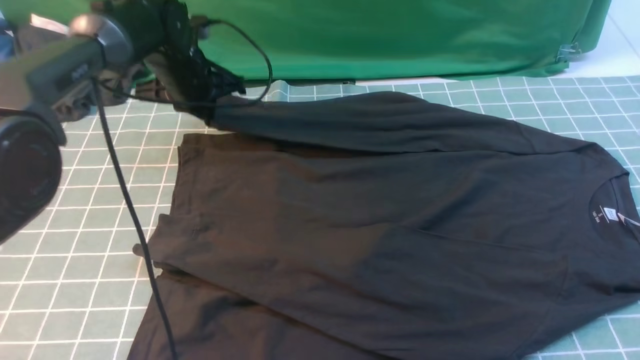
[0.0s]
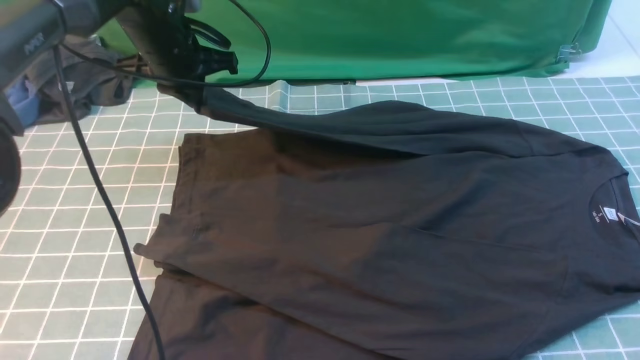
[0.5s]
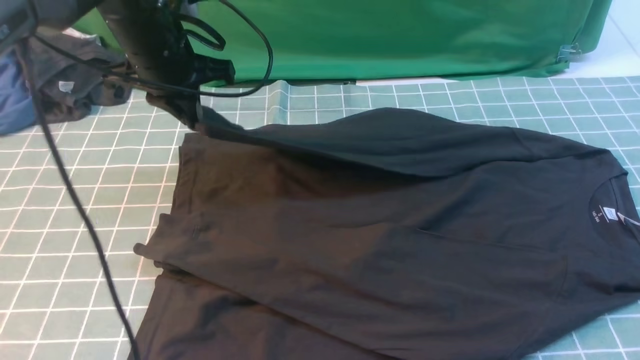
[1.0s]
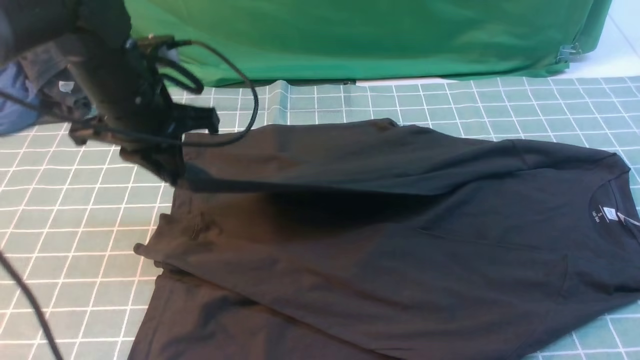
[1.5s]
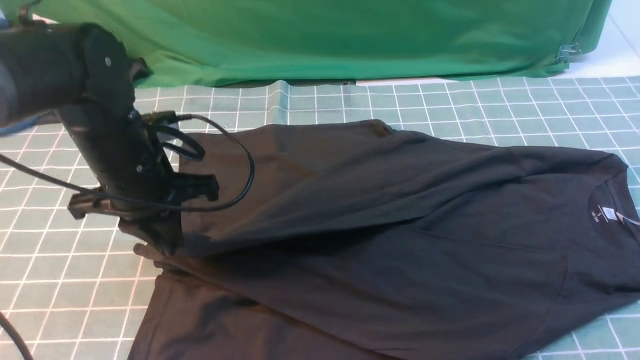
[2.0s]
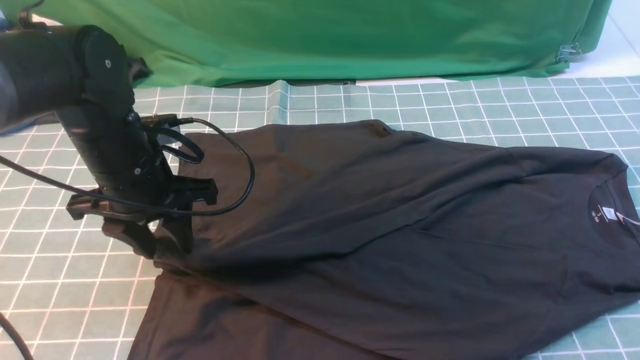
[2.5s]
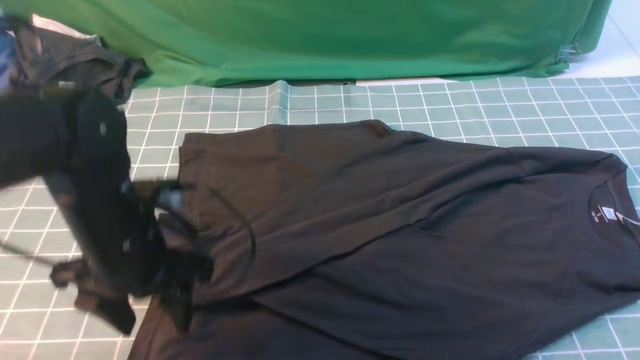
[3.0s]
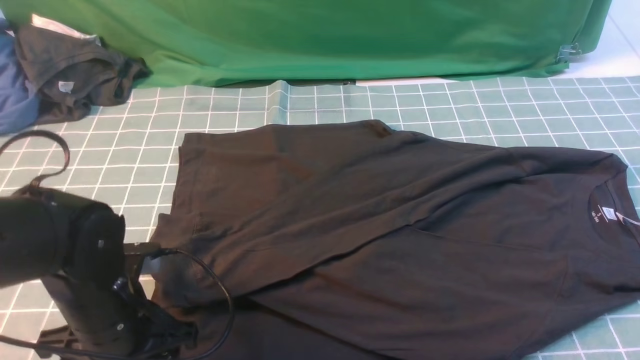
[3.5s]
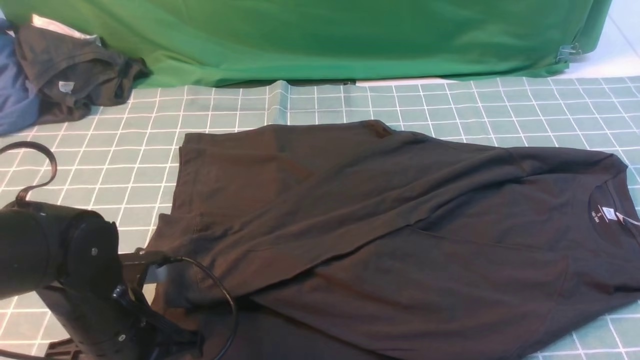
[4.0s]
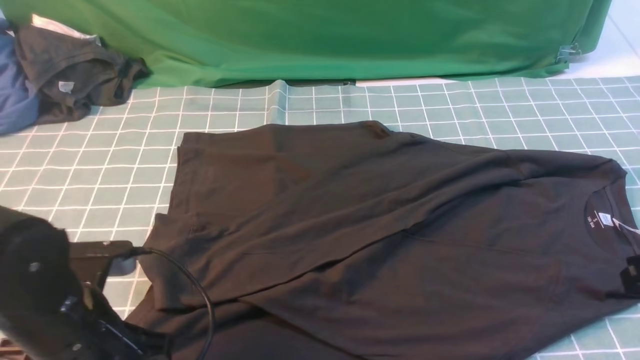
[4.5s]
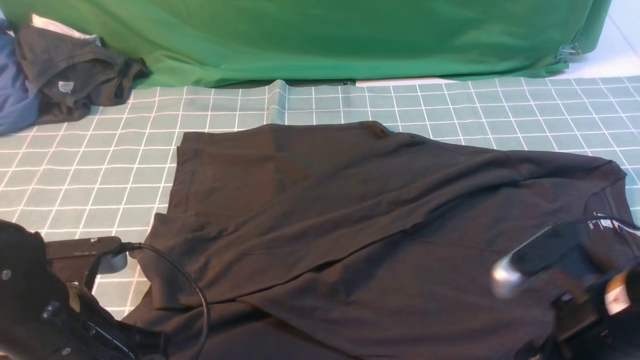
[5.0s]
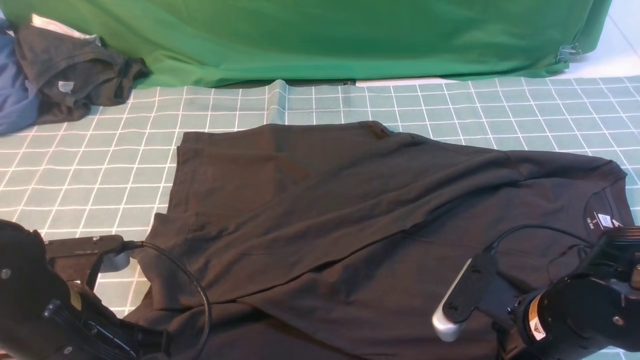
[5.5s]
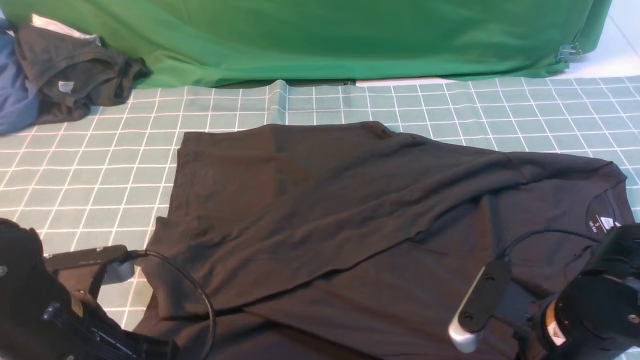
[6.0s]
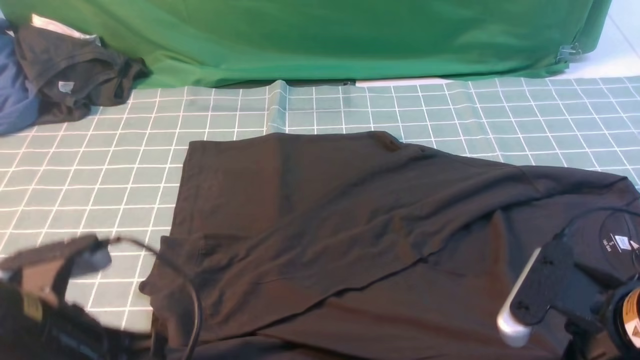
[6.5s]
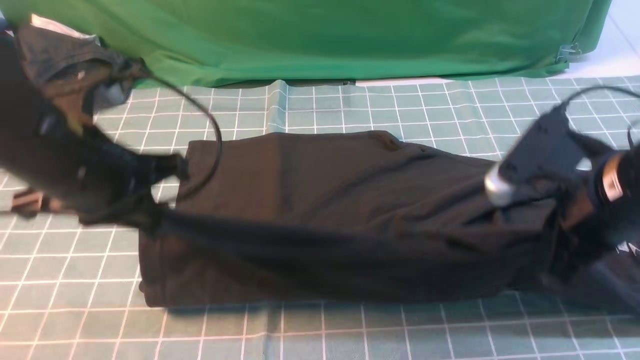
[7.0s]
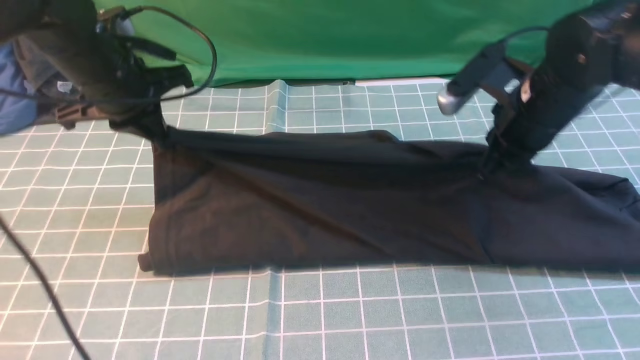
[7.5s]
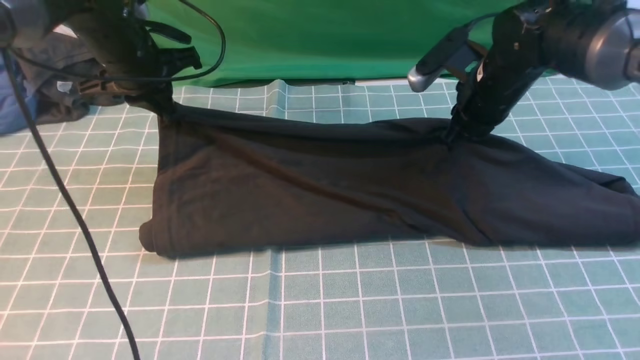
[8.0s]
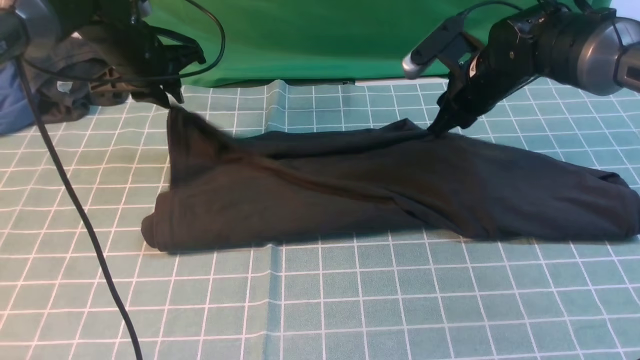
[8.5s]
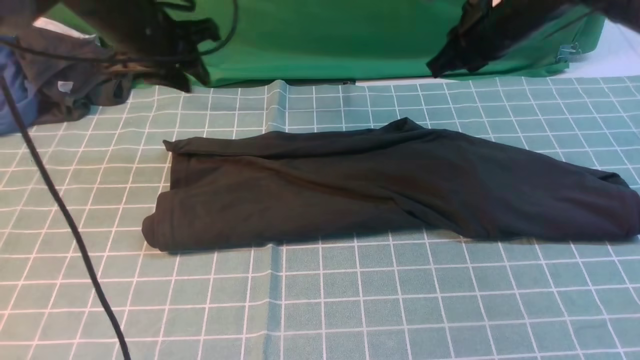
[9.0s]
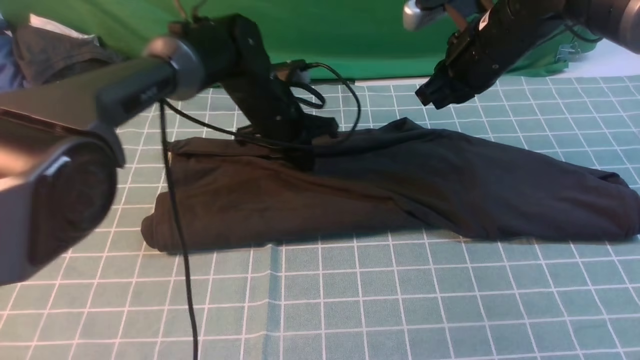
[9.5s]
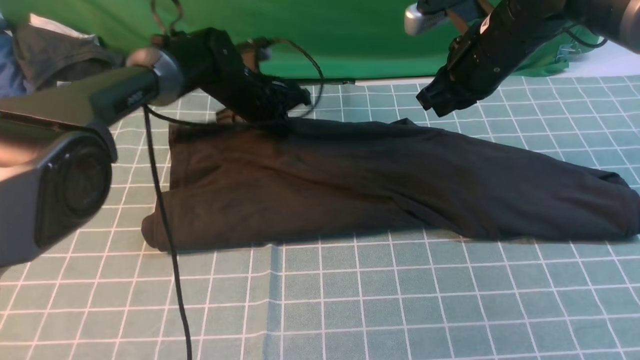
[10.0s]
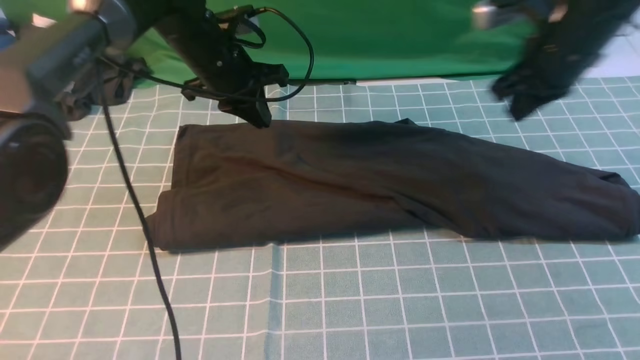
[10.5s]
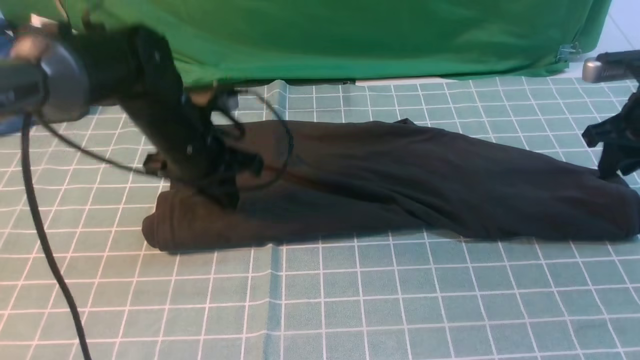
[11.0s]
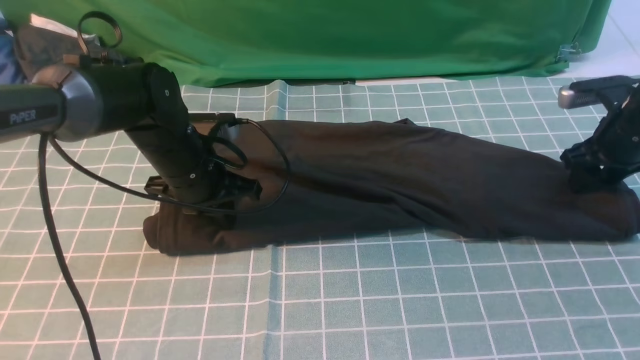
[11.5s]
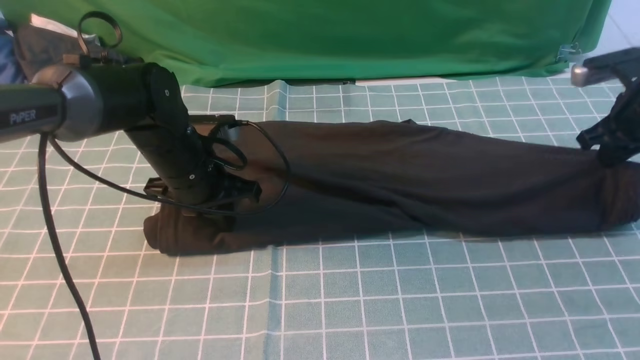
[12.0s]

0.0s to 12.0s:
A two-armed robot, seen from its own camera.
Step, 0.0s to 2.5s: use the left arm to drag and drop the cuff onto the cuff closest to the left arm.
Step, 3.0s to 6.0s: use both arms simultaneously to clamp the lower edge of the clothing fabric.
Step, 6.5s to 8.5s: use both arms to drag the lower edge of the fabric forward and fold it over the upper edge.
0.0s to 2.0s: The left gripper travels backward by approximately 20 cm. Meanwhile the right gripper shifts by about 5 cm.
2.0s to 4.0s: The left gripper shifts approximately 15 cm backward and downward, and opens, then closes once more.
4.0s to 6.0s: The right gripper shifts about 15 cm downward and to the left, and opens and closes again; the left gripper travels upward by roughly 5 cm.
6.0s to 8.0s: The grippers both shift forward by about 30 cm.
8.0s to 10.0s: The right gripper goes roughly 5 cm upward. Meanwhile the left gripper is displaced to the right and downward by some 15 cm.
10.0s to 12.0s: The left gripper shifts about 15 cm backward; the right gripper travels to the right by approximately 20 cm, and opens, then closes again.

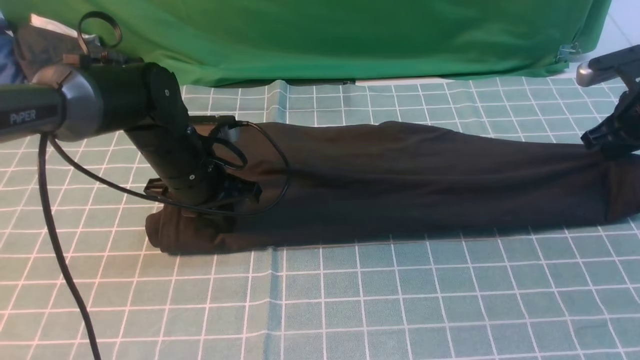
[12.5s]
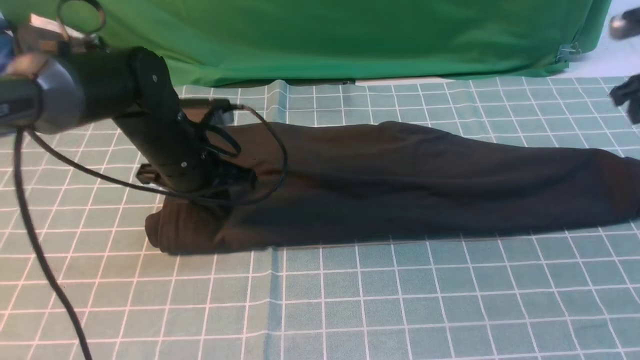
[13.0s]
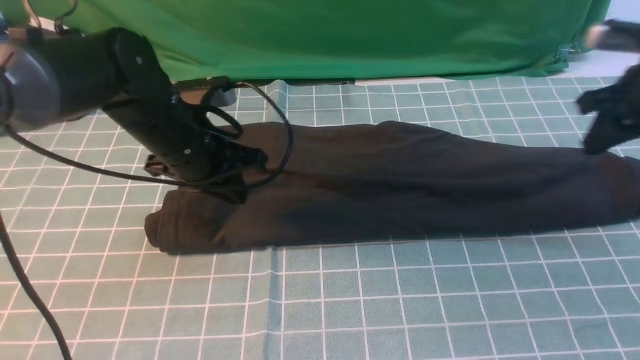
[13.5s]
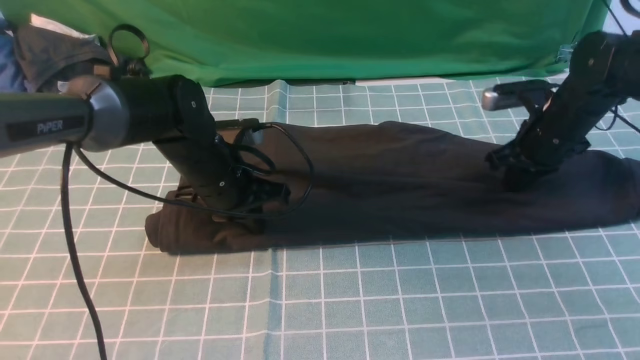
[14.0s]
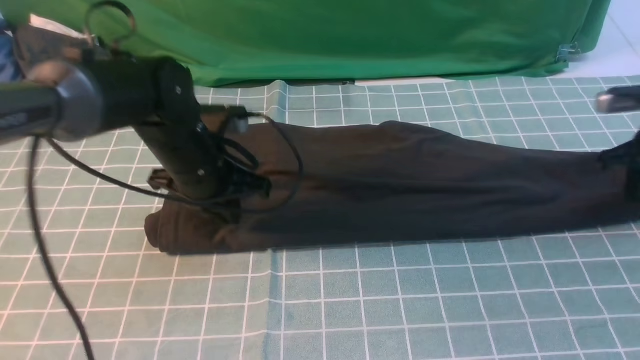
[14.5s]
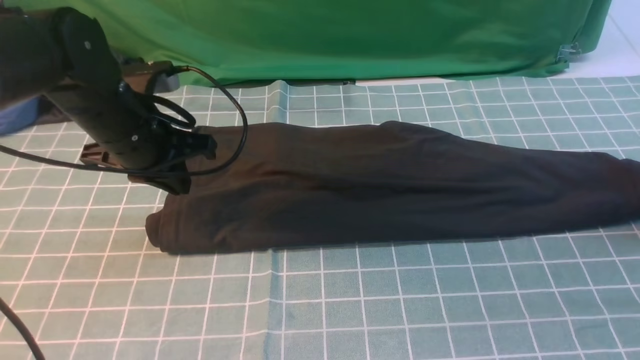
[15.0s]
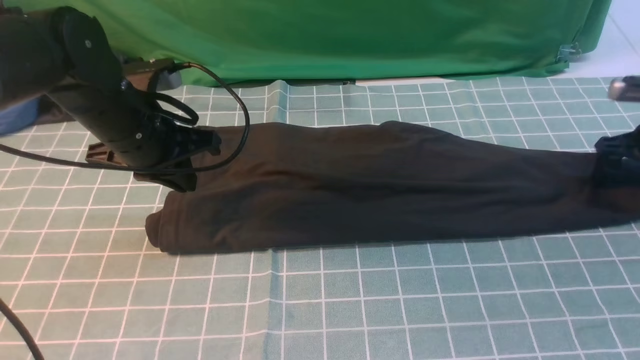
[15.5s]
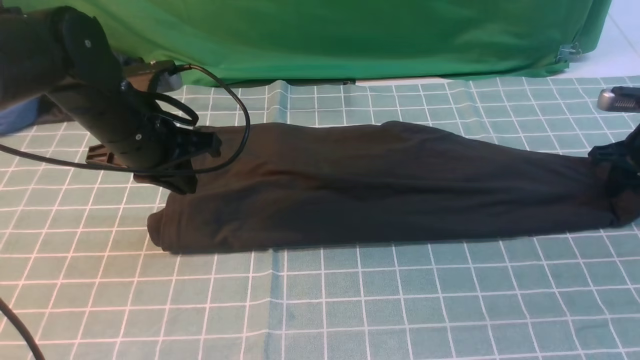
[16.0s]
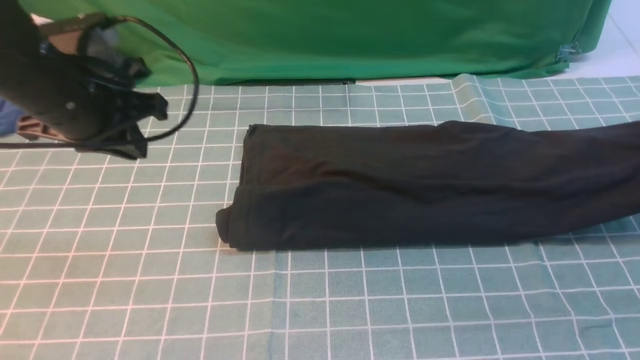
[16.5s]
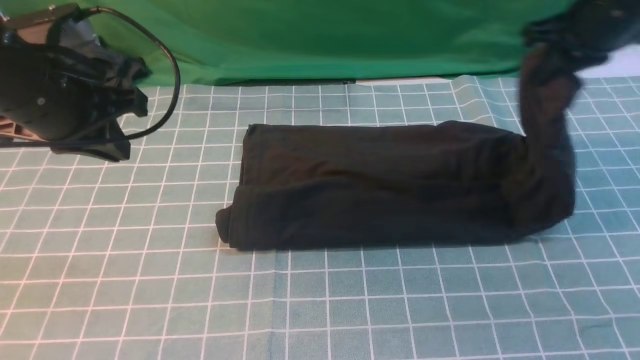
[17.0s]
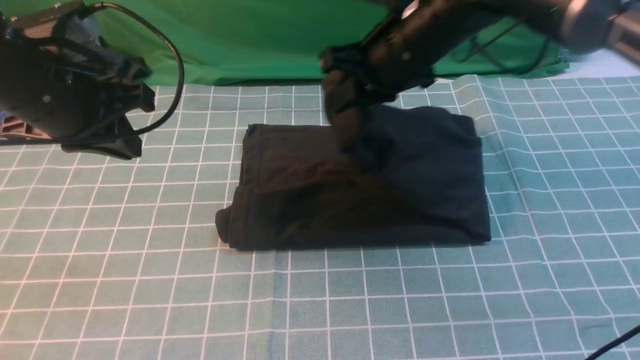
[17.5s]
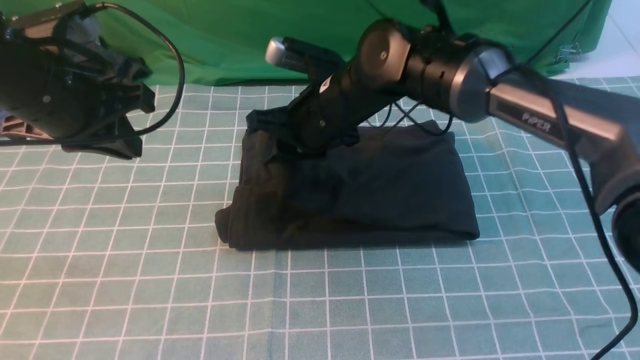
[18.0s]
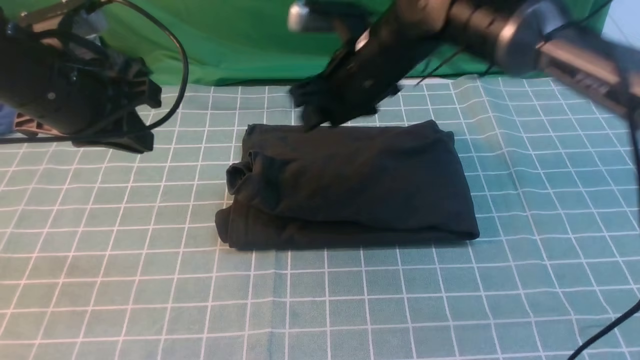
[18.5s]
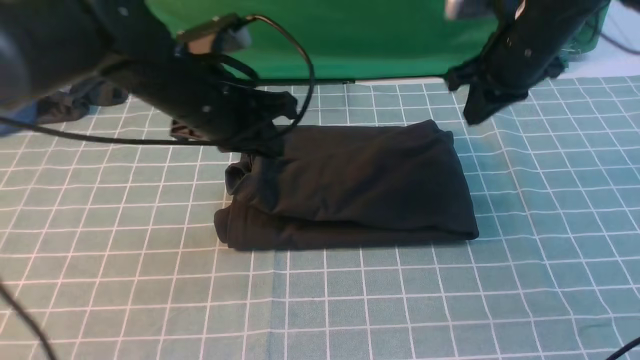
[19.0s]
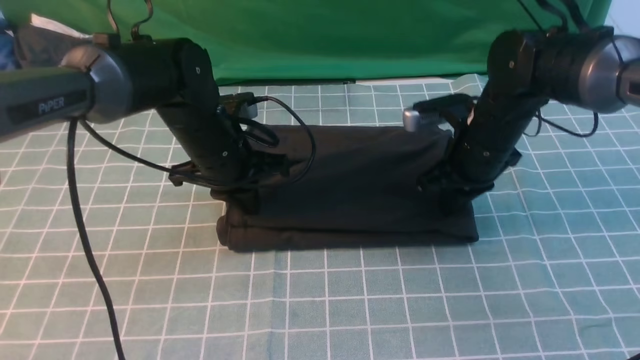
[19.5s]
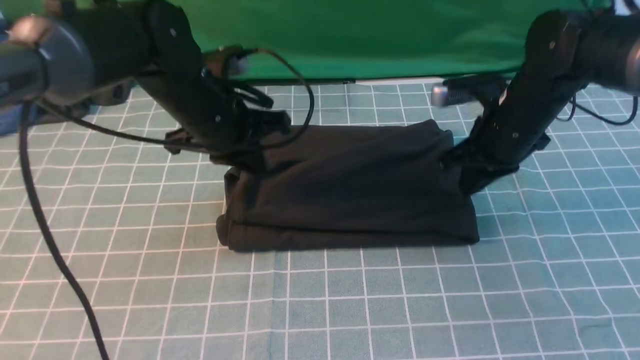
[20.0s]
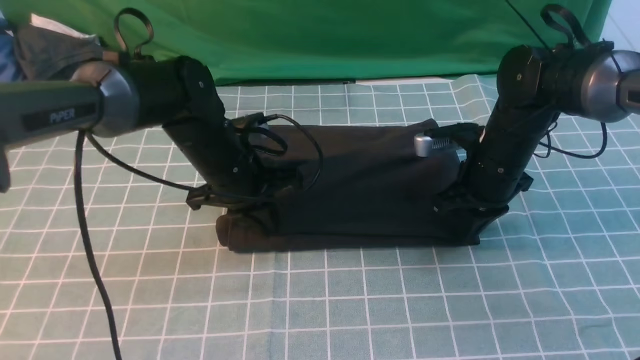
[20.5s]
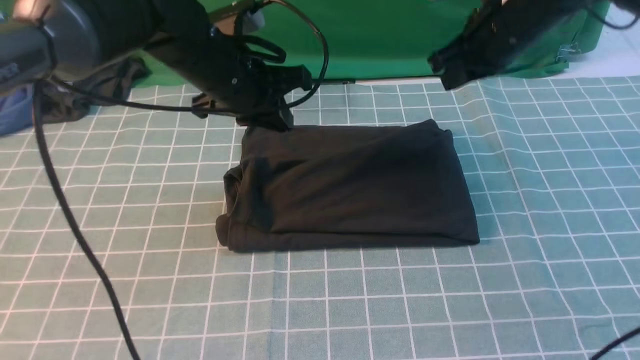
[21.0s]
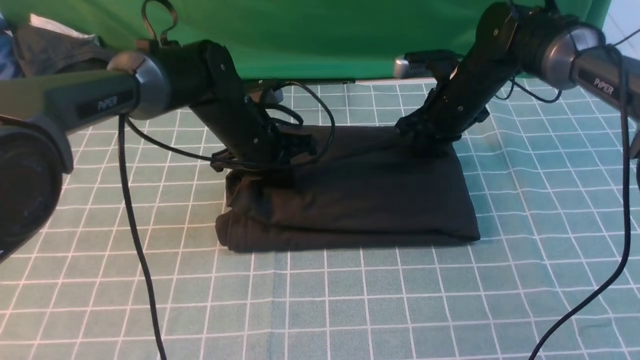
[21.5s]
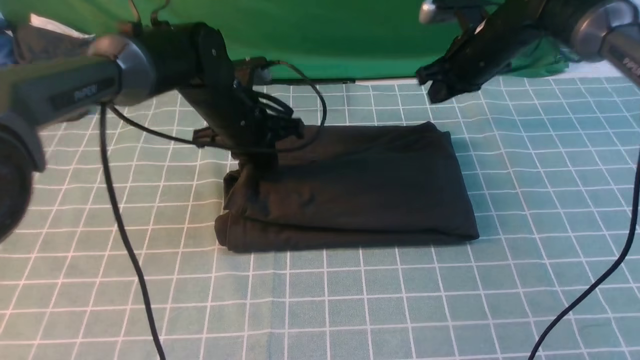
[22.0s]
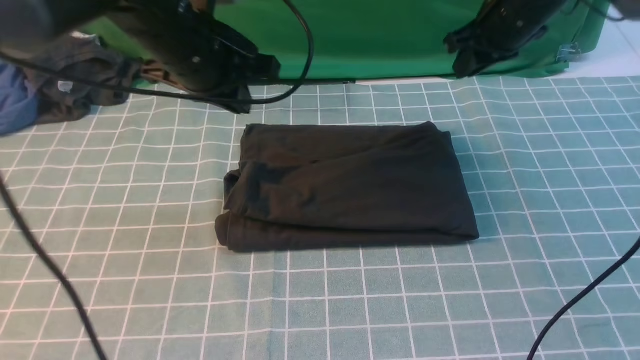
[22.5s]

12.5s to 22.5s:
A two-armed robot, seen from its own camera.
Step, 12.5s to 16.0s: use the right arm to clamp the right edge of the fabric.
Step, 16.5s to 18.5s: use the right arm to drag the right edge of the fabric to the left and folds it over the left edge.
12.5s to 14.5s: The left gripper goes up and down, some 5 cm each way, reversing 2 times; the right gripper reaches approximately 10 cm to the left, then returns.
14.5s to 16.5s: The right gripper shifts approximately 5 cm upward, and opens, then closes again; the left gripper heads upward and to the left, covering roughly 10 cm.
16.5s to 18.5s: The right gripper moves to the left, roughly 35 cm, and opens up.
18.5s to 20.5s: The right gripper shifts about 15 cm to the right and downward, and closes its fingers, while the left gripper is displaced downward, to the right and forward by about 15 cm.
20.5s to 22.5s: The right gripper travels upward and forward by some 15 cm. Meanwhile the left gripper swings up and down, roughly 15 cm each way, with 2 reversals.
